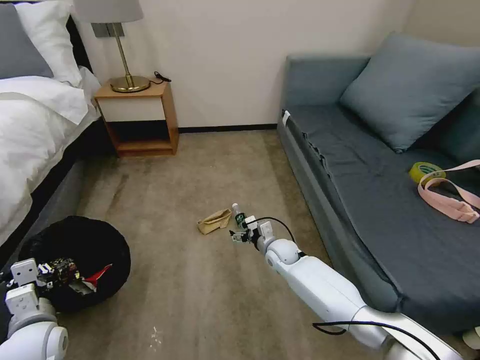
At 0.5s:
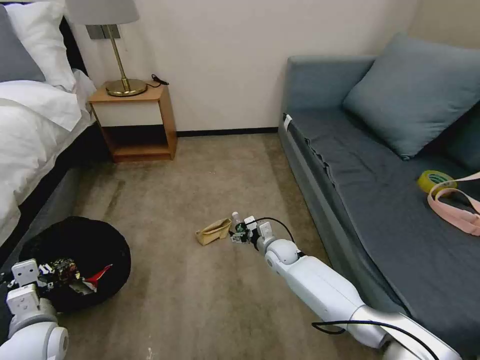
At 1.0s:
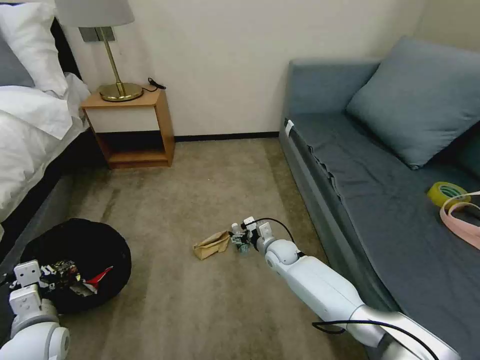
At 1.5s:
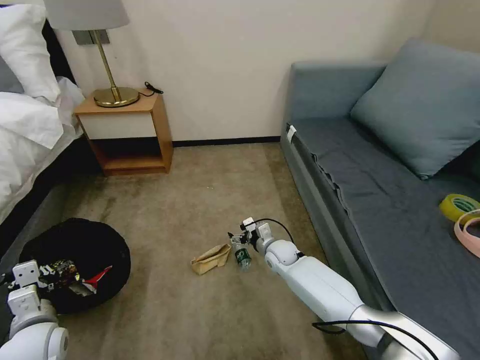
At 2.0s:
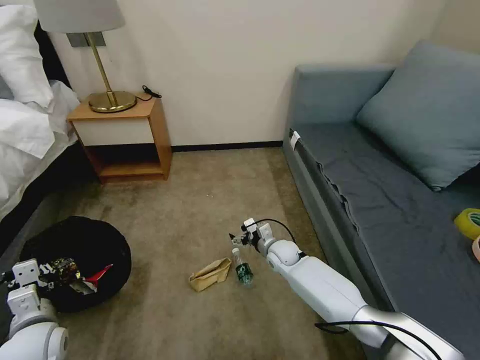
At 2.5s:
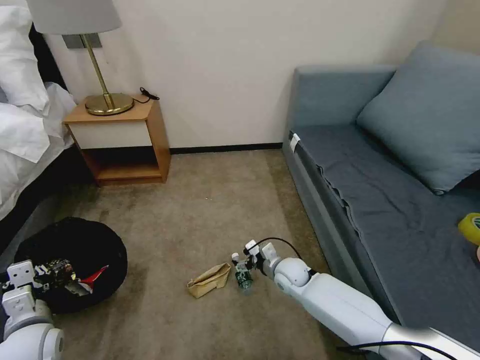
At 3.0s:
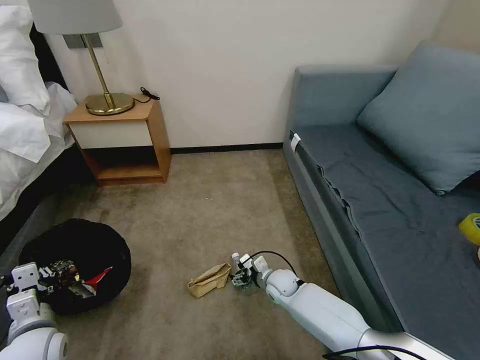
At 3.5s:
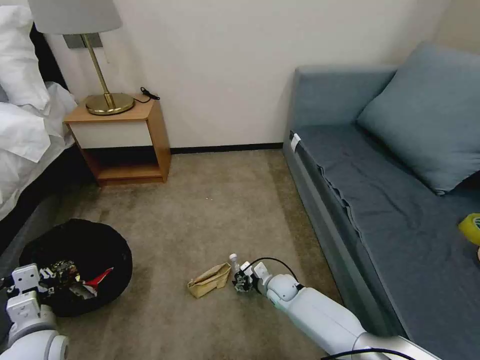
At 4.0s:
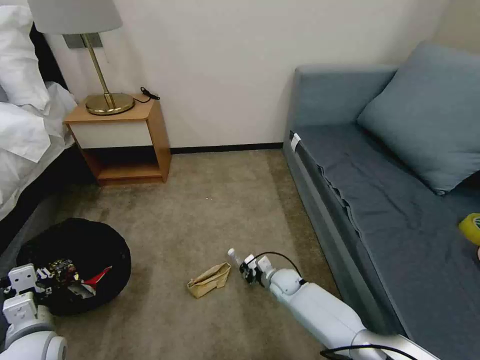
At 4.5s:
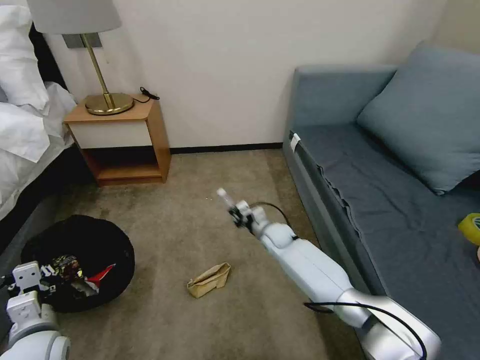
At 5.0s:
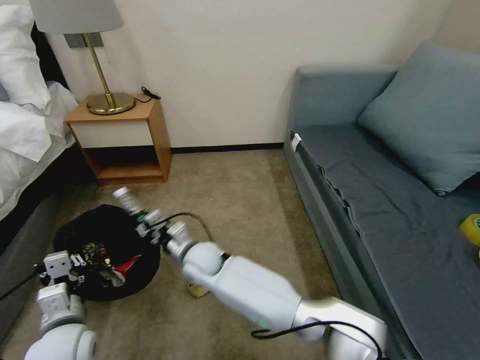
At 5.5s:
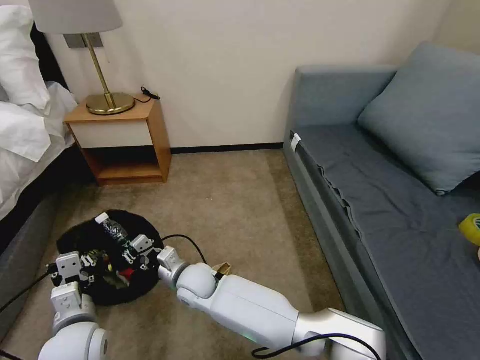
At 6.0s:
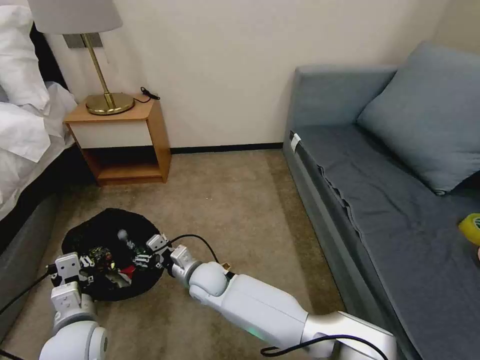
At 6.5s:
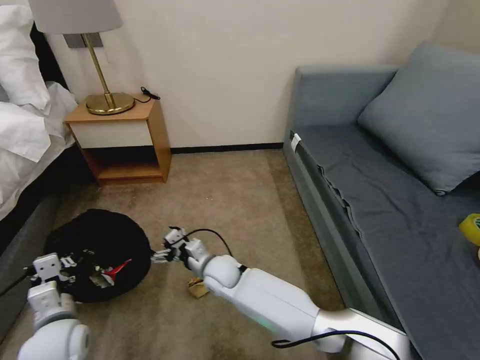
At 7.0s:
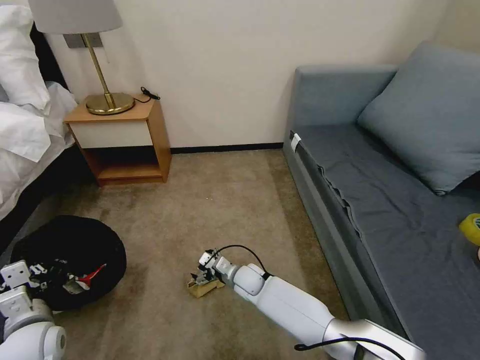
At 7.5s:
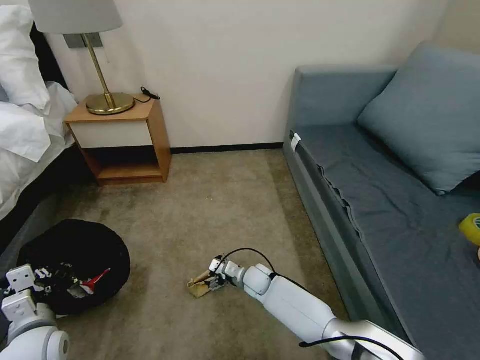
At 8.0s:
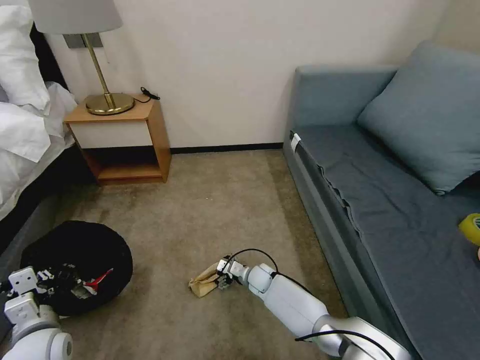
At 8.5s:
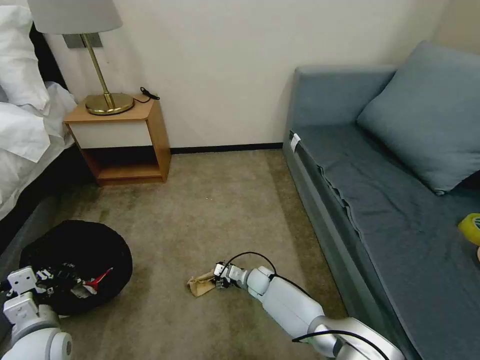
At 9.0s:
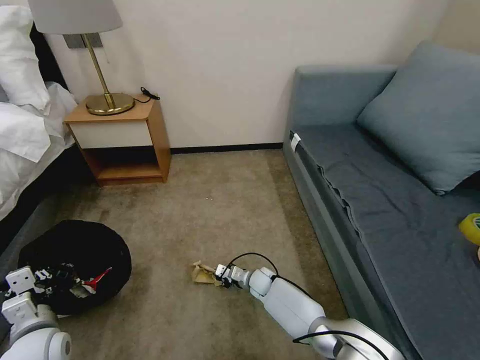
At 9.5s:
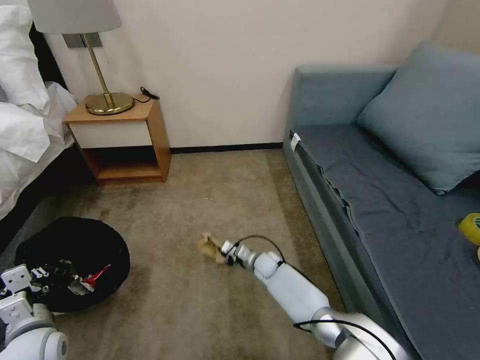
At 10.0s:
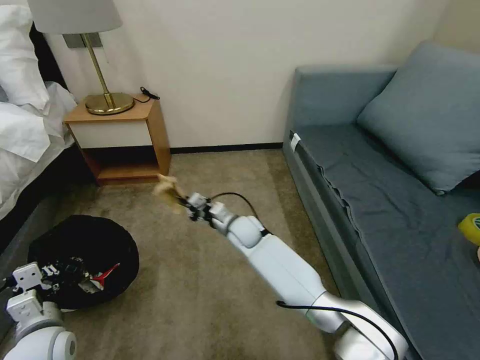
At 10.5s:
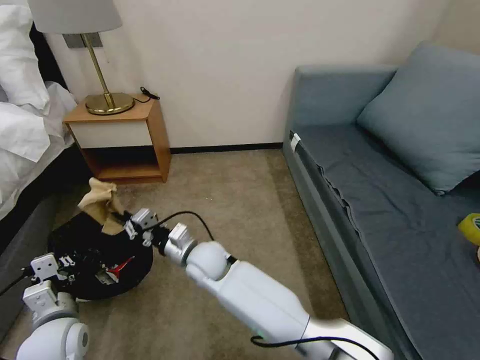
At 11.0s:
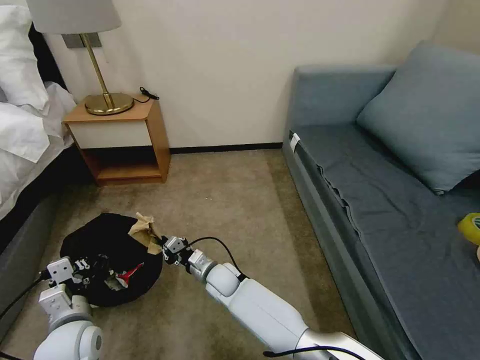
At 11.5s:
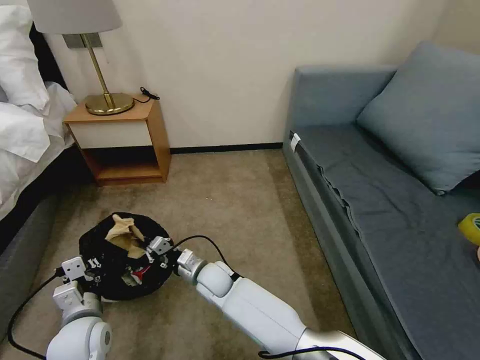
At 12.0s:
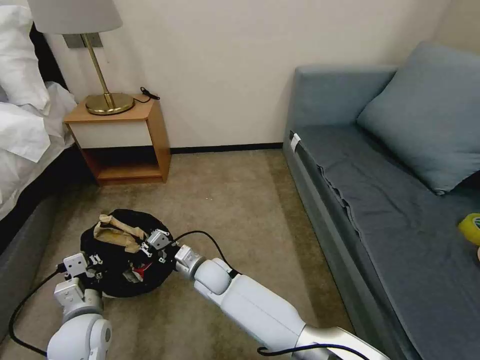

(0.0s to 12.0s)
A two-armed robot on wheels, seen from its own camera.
Task of the whole recording: Pick up the trash bin, then pick up the garbage on the floor and place it into the trash bin.
2.0s - 4.0s: The right gripper moves downward and backward, roughly 10 cm, and closes up.
4.0s - 6.0s: The right gripper heads to the left and upward, covering some 25 cm, and opens up; the left gripper shifts roughly 10 cm to the right.
6.0s - 8.0s: The left gripper shifts about 10 cm to the left; the right gripper moves to the right, downward and forward, approximately 25 cm.
8.0s - 10.0s: The right gripper travels upward by about 20 cm, and closes its fingers.
10.0s - 12.0s: The left gripper is displaced to the right by some 5 cm; the right gripper shifts roughly 15 cm backward and to the left.

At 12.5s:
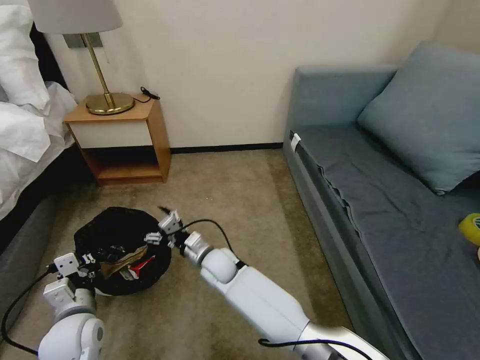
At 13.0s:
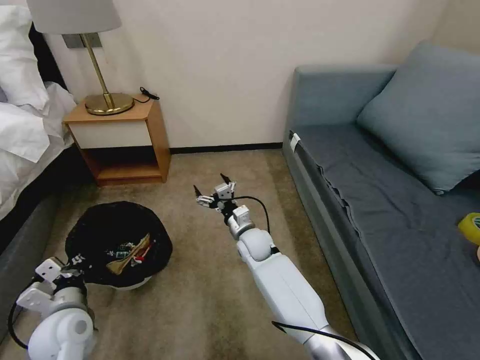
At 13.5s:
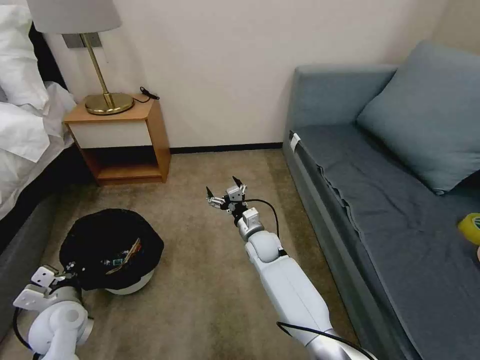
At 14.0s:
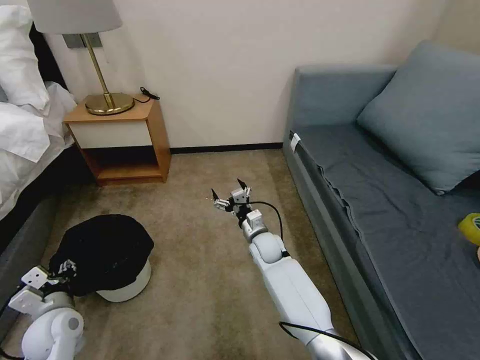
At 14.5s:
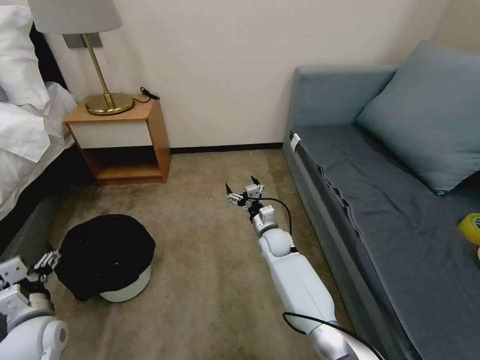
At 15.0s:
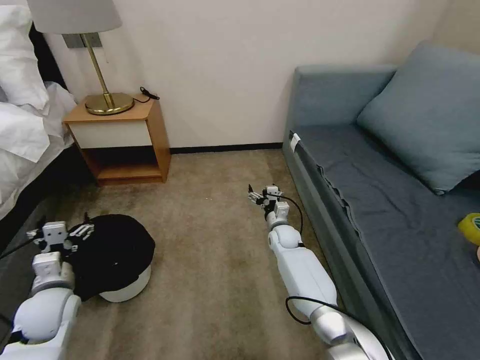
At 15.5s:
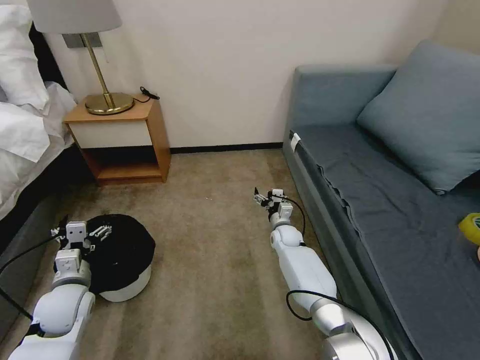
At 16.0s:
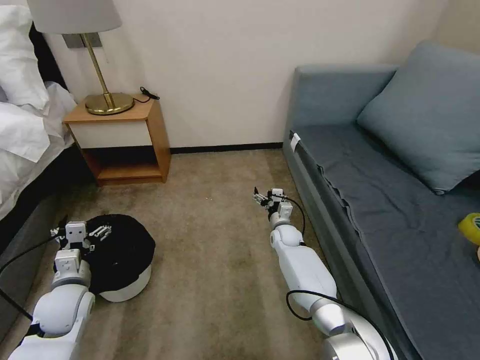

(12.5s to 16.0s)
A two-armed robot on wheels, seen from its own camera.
Task of the whole recording: Pick up the trash bin, then pick up the garbage on the floor and place it into the trash bin.
12.5s - 14.5s: The right gripper is displaced to the right and forward by roughly 20 cm; the left gripper heads to the left, covering some 10 cm, and opens up.
14.5s - 16.0s: The left gripper moves forward, some 5 cm, while the right gripper ends up about 10 cm from where it was.

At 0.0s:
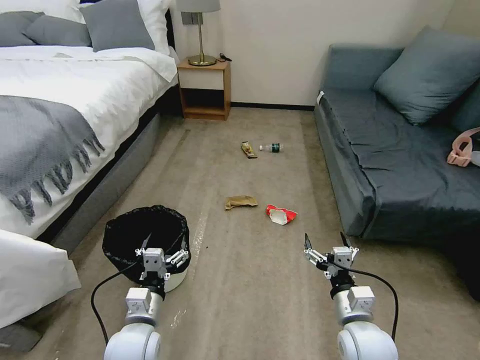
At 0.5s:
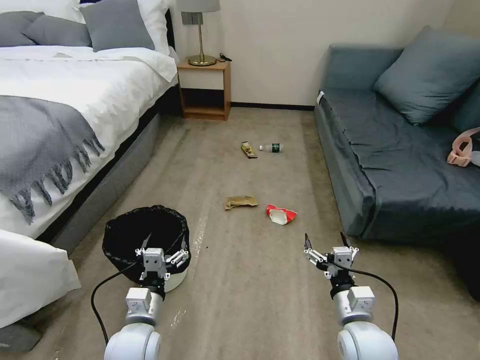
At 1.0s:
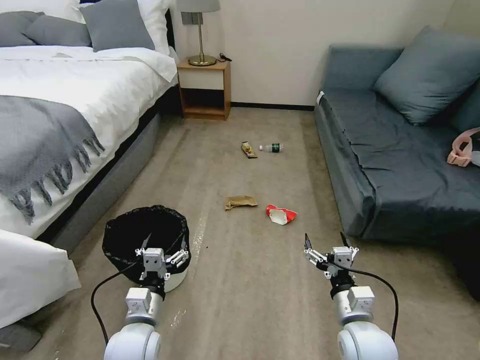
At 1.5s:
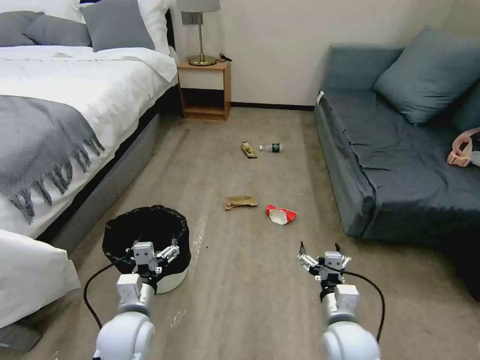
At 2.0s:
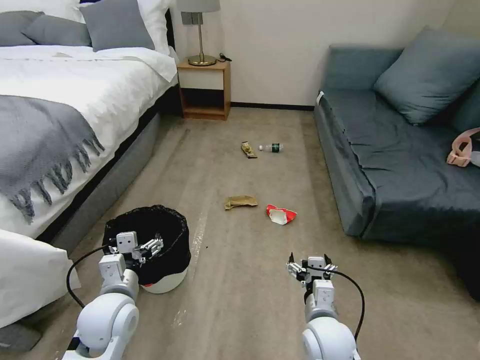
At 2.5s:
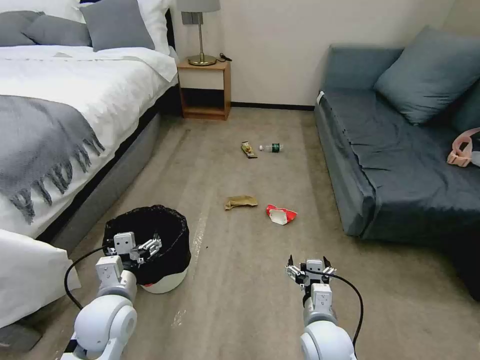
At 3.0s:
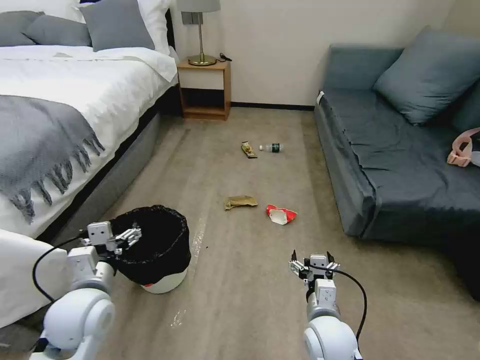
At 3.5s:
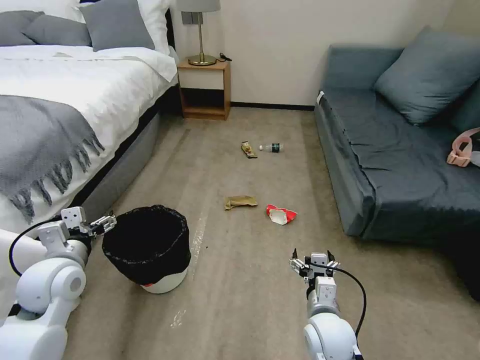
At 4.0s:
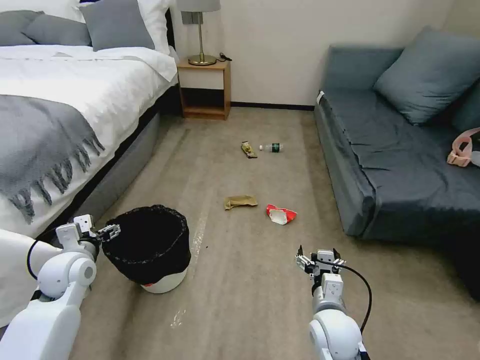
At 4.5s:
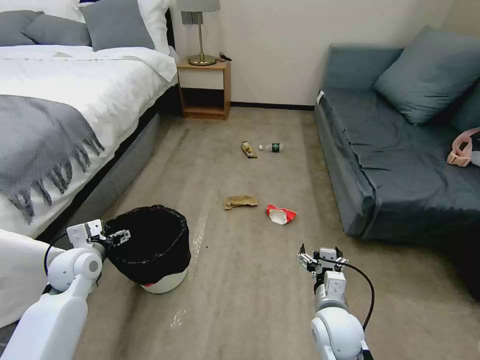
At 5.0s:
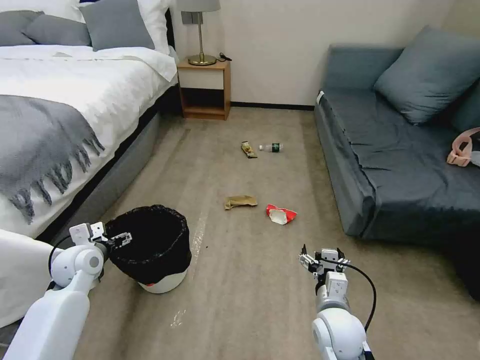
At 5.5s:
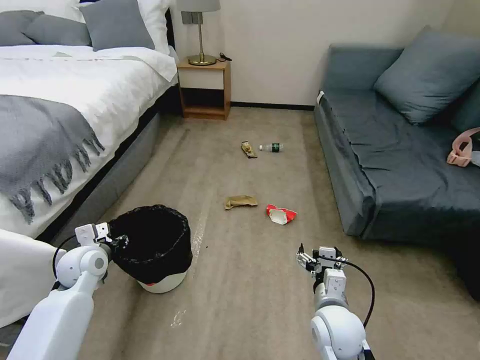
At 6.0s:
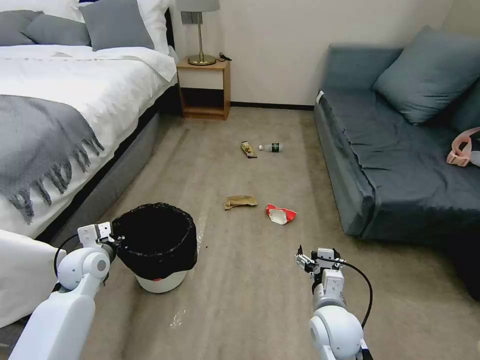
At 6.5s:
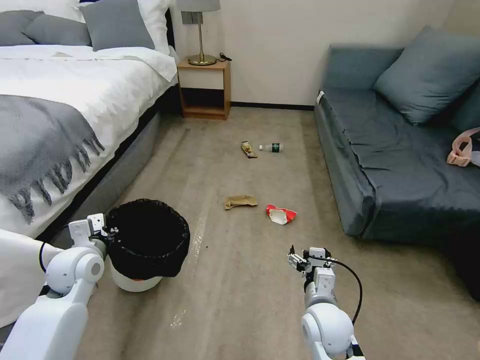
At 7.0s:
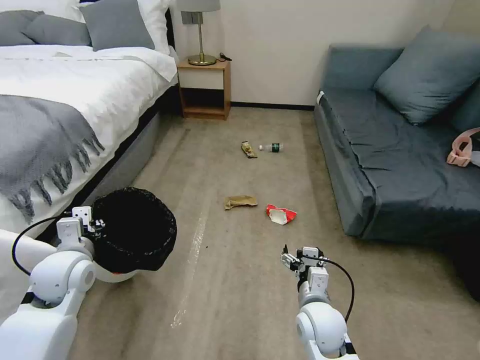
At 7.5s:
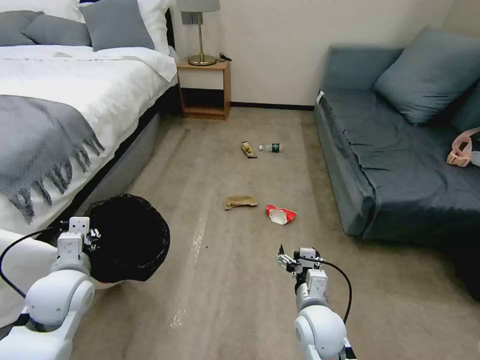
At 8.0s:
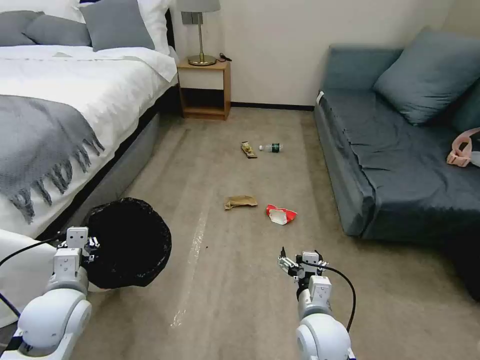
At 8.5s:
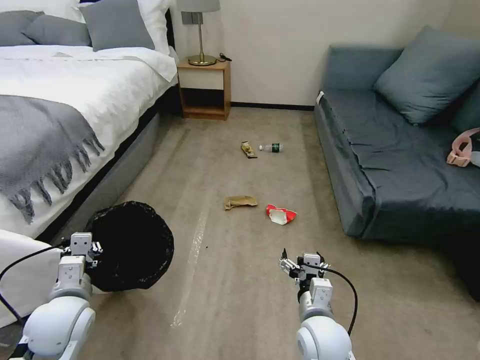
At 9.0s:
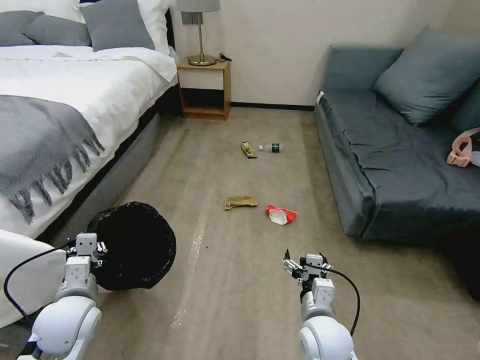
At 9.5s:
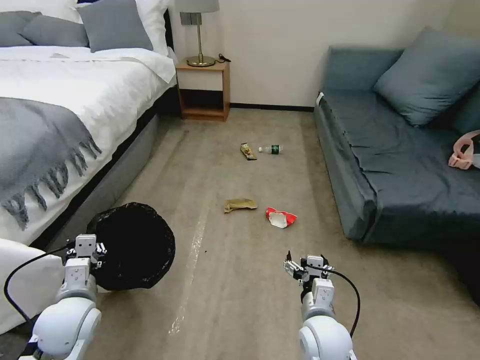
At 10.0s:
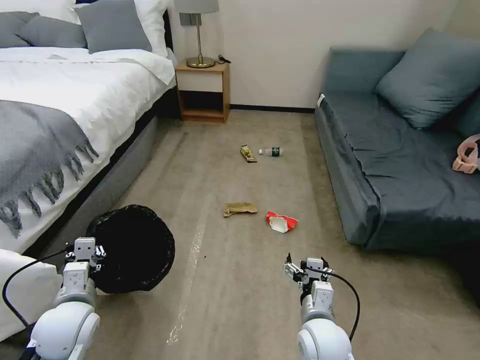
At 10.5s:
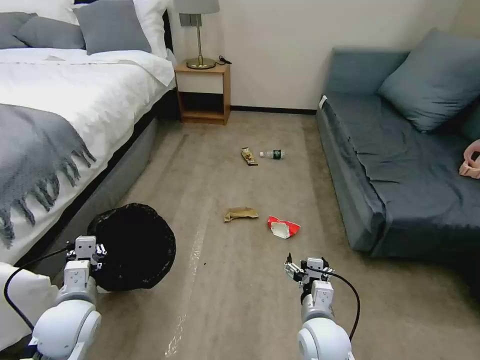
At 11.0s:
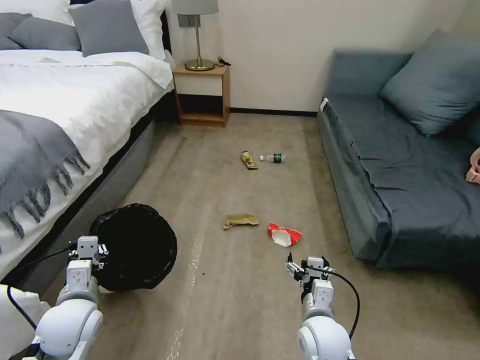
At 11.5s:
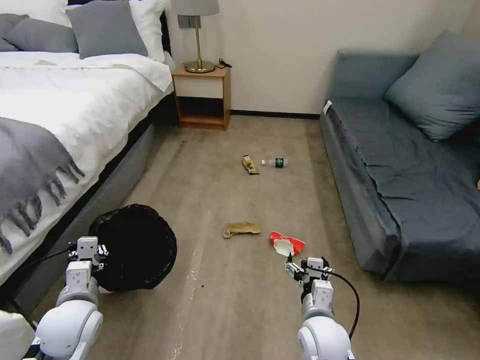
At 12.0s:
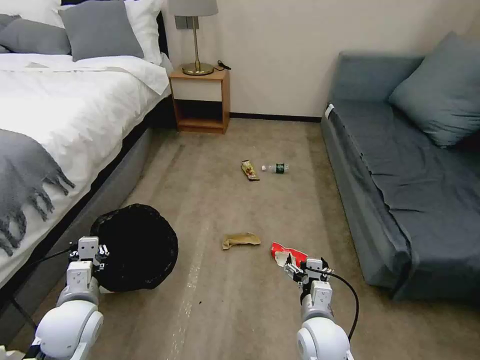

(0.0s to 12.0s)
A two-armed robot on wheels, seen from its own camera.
Task of the whole recording: Pick up the trash bin, then pick up the garbage on the floor and place it into the trash bin.
2.0s - 4.0s: The left gripper shifts roughly 15 cm to the left and forward.
4.0s - 6.0s: The left gripper closes up.
6.0s - 8.0s: The left gripper heads backward, covering approximately 10 cm.
8.0s - 10.0s: The grippers stay close to where they were, moving slightly.
